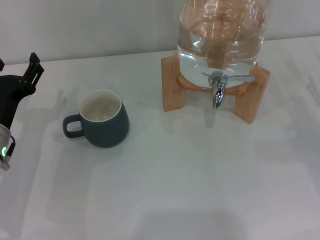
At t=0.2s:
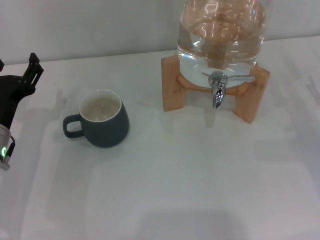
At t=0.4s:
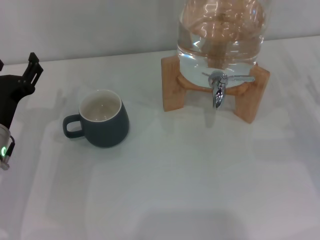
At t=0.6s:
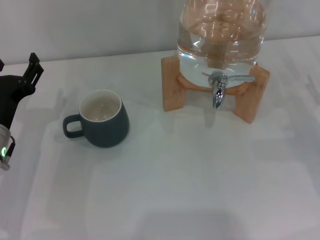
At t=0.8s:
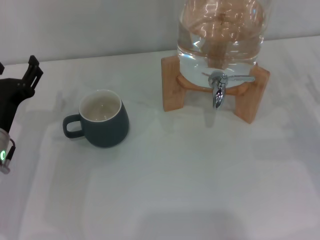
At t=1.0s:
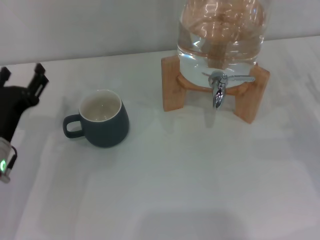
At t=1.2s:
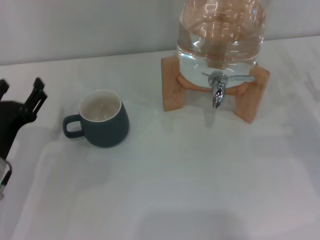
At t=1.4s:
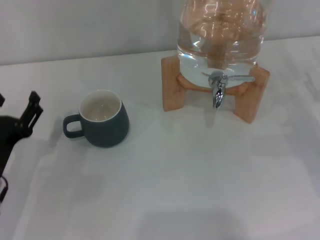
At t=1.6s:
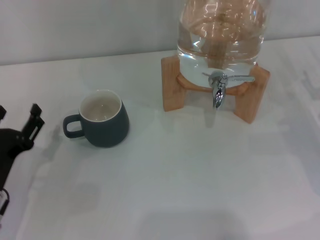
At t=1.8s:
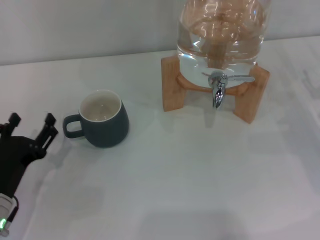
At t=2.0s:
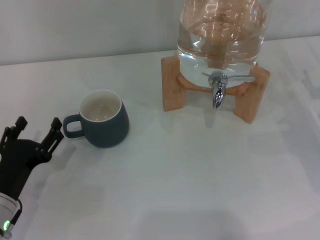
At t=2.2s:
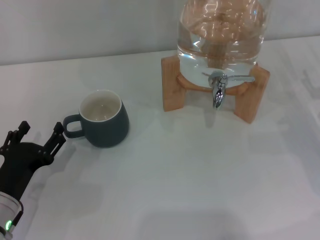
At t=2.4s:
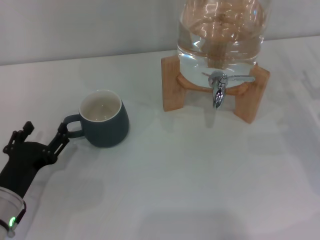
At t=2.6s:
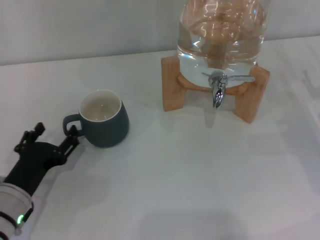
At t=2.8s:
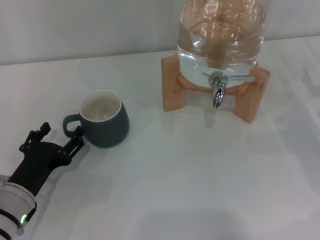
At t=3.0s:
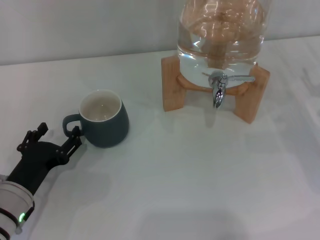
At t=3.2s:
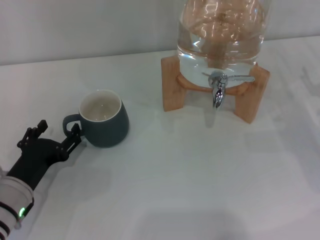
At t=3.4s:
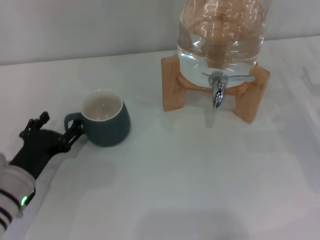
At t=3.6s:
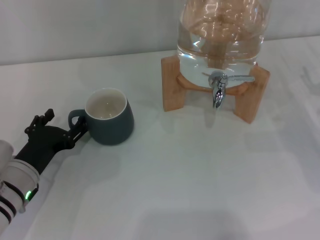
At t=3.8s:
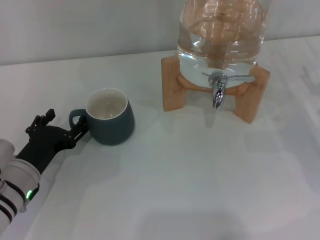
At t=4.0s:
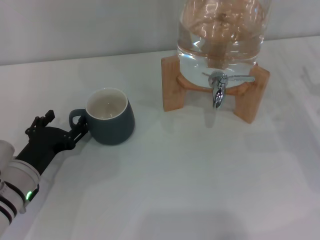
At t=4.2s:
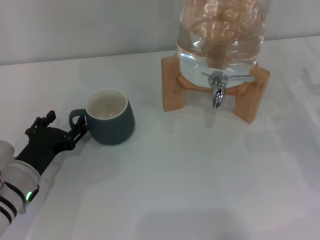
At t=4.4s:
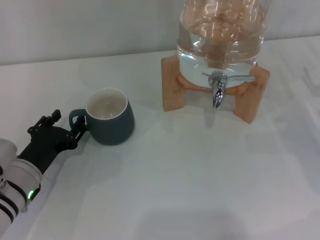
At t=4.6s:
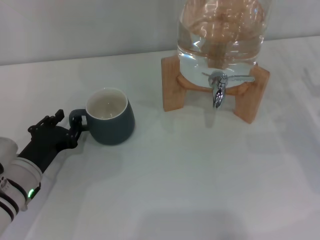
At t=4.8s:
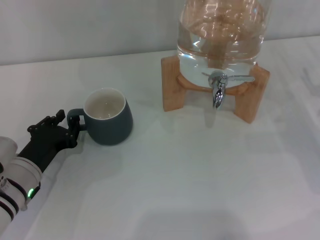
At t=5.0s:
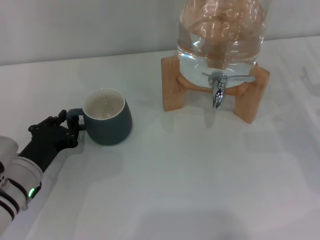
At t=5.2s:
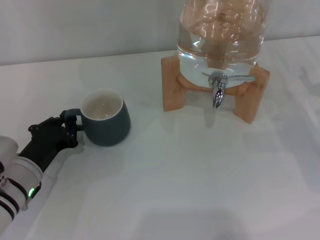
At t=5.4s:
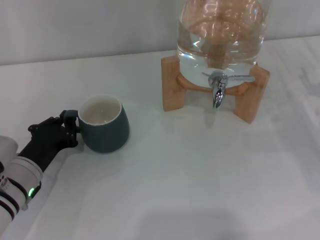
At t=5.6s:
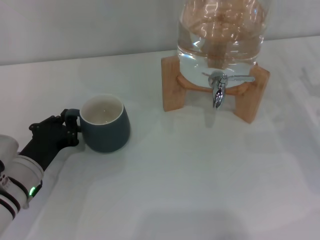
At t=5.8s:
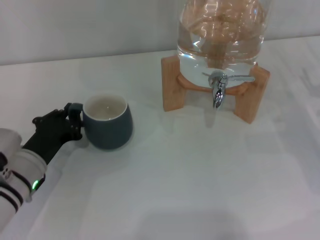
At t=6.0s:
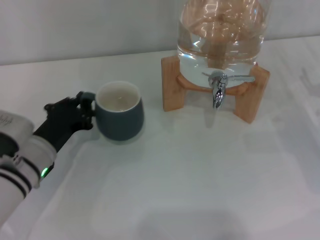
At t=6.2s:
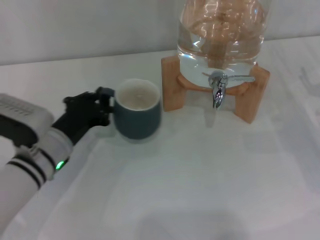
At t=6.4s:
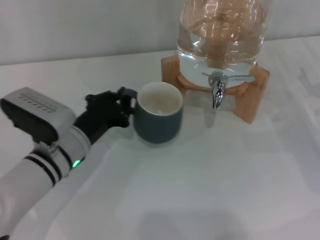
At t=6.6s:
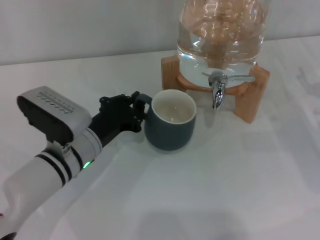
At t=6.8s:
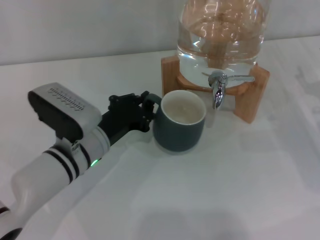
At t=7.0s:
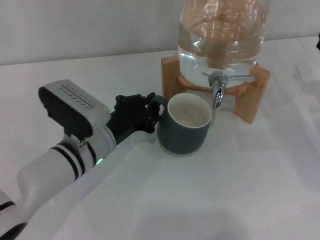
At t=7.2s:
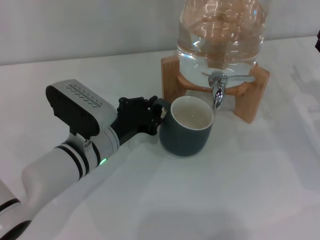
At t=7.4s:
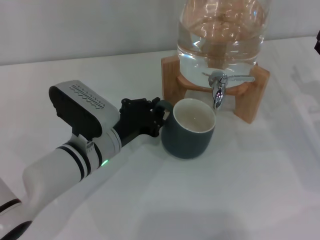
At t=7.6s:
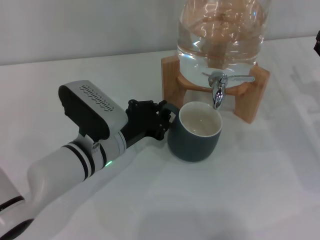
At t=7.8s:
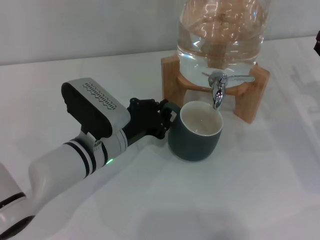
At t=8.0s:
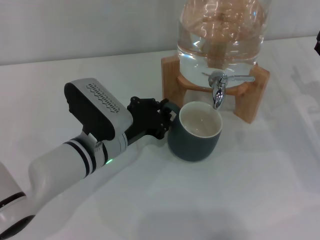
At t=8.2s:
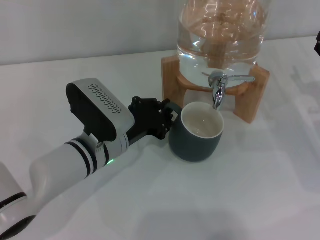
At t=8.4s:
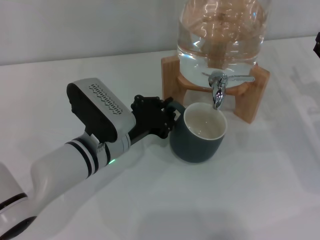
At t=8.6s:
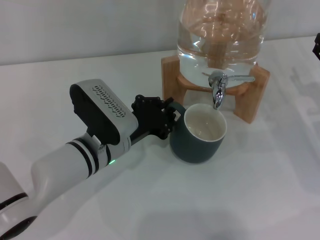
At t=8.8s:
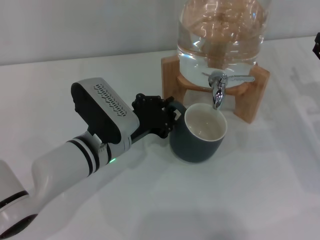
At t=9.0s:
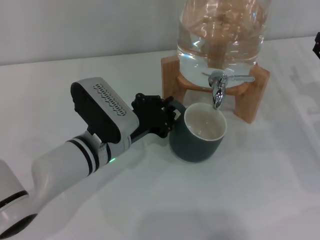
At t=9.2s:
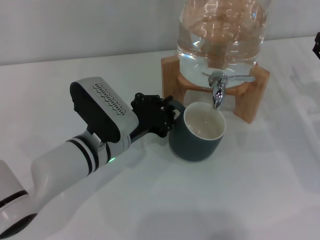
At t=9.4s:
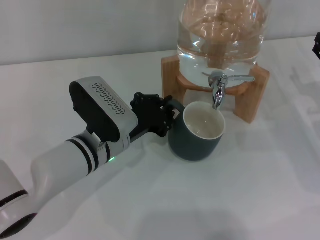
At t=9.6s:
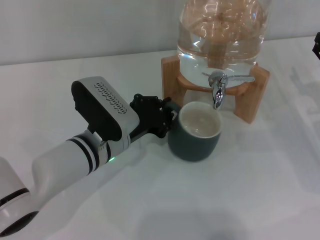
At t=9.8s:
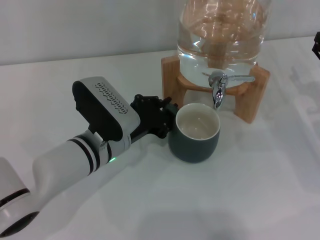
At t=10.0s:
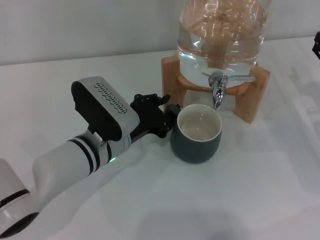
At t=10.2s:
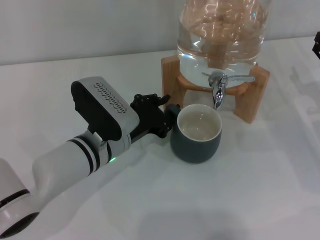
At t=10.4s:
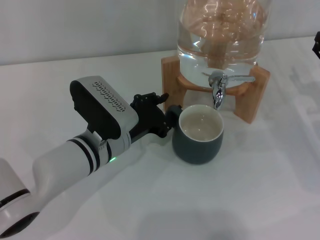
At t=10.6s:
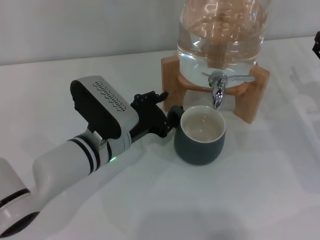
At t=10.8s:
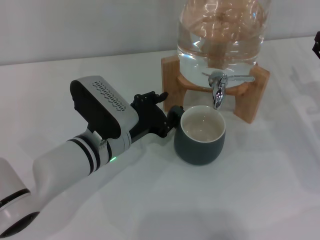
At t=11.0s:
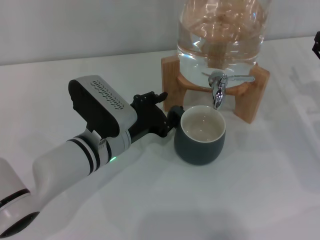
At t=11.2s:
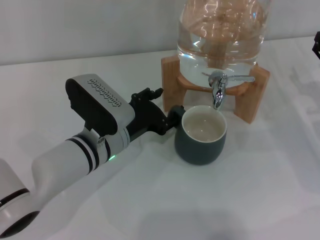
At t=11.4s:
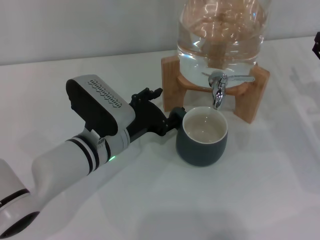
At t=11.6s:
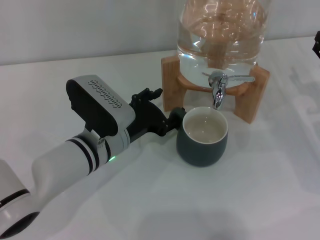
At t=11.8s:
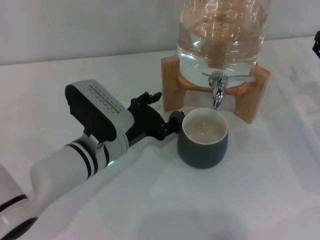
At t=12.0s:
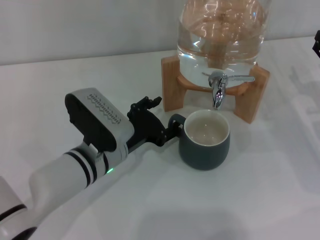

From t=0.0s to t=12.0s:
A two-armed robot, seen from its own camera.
Task of the whole recording: the left gripper pick up the black cup and place it horizontally under the faucet, the right gripper turn on the faucet to fill the cup, and then turn off the faucet.
From t=0.0s to t=1.6s: The left gripper heads backward, covering about 10 cm.
From t=1.6s to t=4.4s: The grippers move only a little.
From t=4.4s to t=6.0s: The left gripper closes up.
From t=6.0s to t=7.6s: The left gripper moves to the right, about 10 cm.
From t=7.6s to t=9.0s: The grippers move only a little.
From t=9.0s to t=10.4s: Neither gripper changes place.
From t=10.4s to t=12.0s: The left gripper opens.

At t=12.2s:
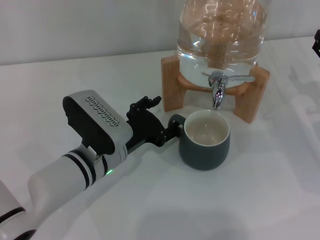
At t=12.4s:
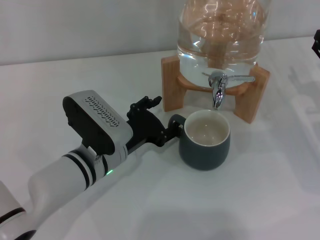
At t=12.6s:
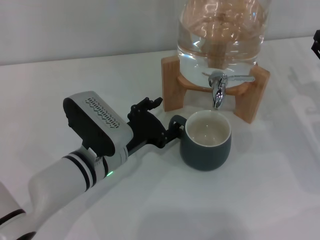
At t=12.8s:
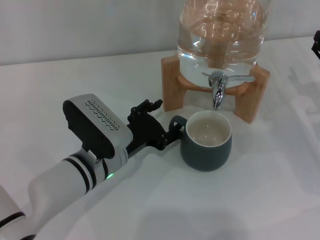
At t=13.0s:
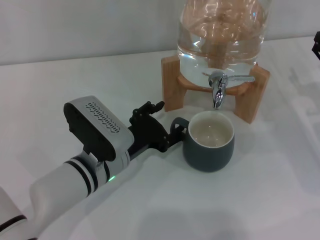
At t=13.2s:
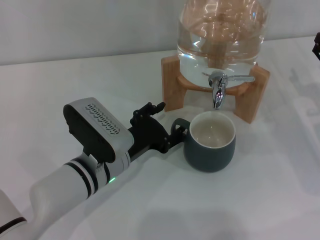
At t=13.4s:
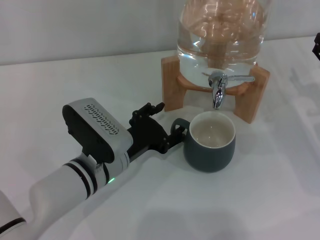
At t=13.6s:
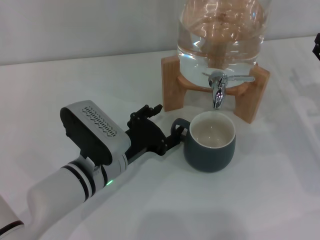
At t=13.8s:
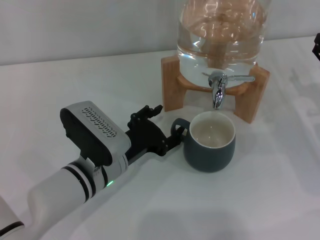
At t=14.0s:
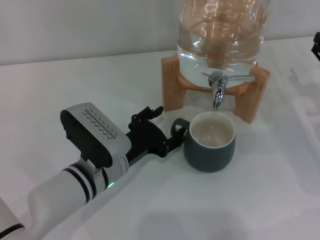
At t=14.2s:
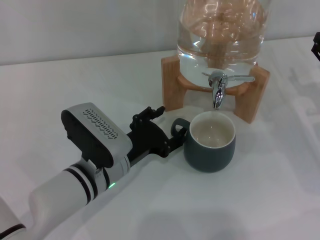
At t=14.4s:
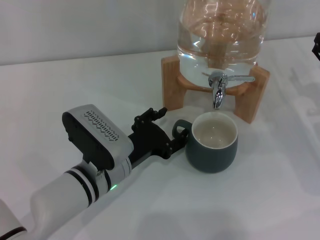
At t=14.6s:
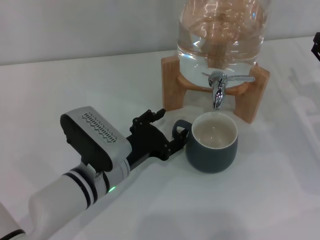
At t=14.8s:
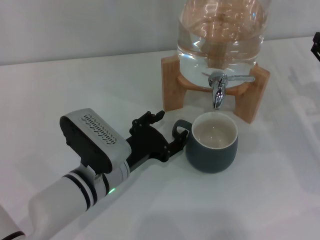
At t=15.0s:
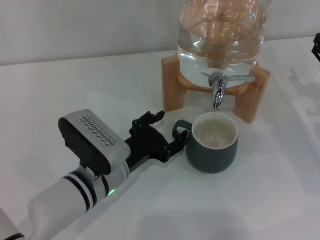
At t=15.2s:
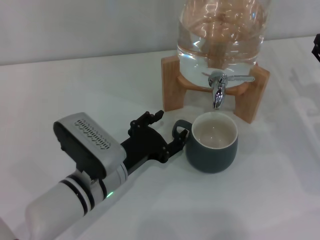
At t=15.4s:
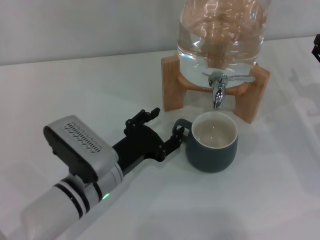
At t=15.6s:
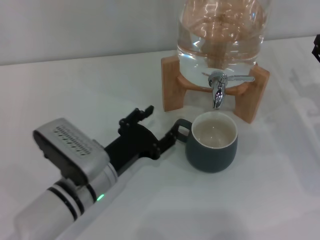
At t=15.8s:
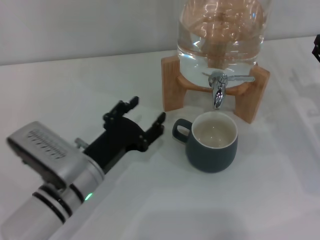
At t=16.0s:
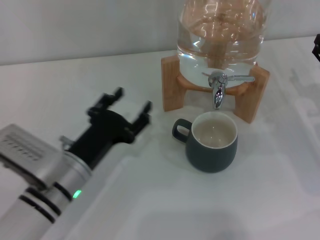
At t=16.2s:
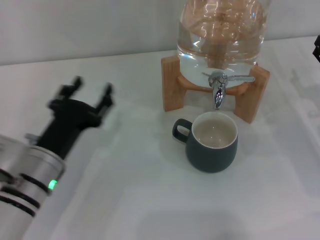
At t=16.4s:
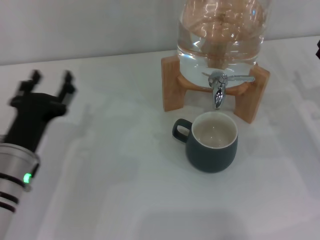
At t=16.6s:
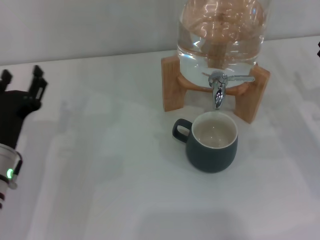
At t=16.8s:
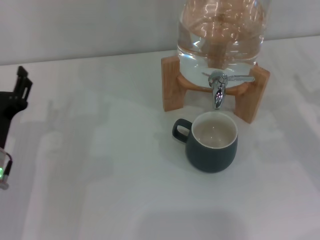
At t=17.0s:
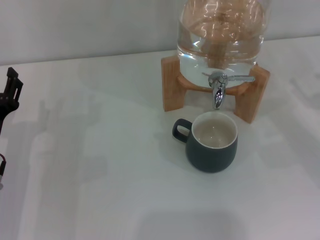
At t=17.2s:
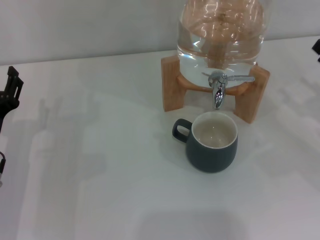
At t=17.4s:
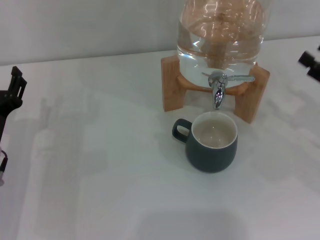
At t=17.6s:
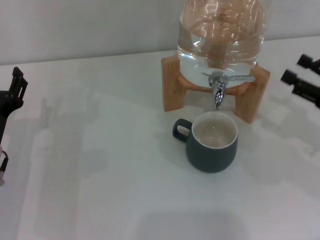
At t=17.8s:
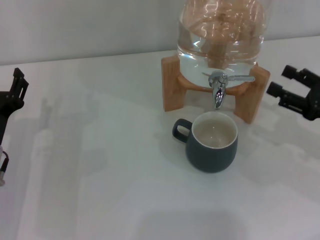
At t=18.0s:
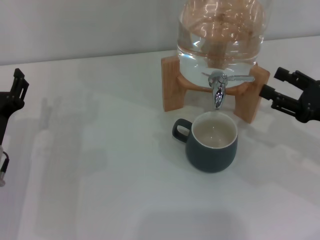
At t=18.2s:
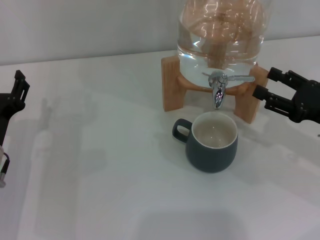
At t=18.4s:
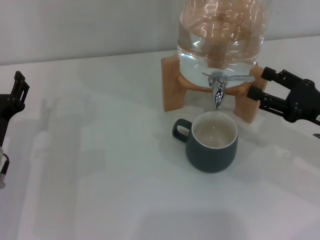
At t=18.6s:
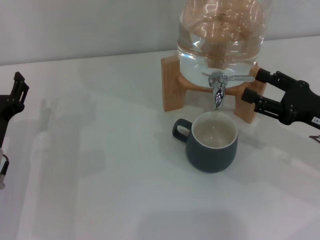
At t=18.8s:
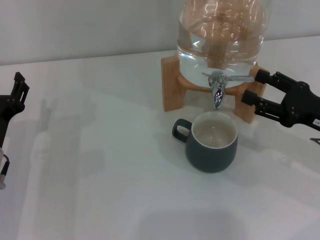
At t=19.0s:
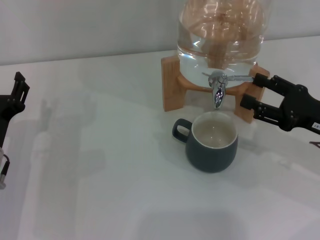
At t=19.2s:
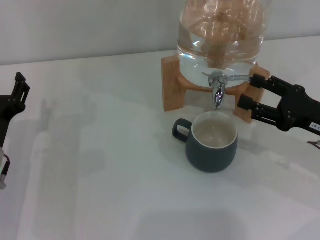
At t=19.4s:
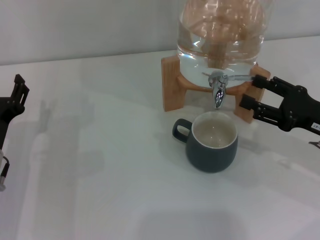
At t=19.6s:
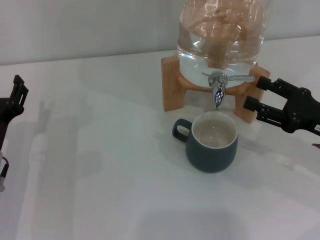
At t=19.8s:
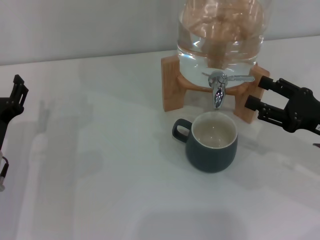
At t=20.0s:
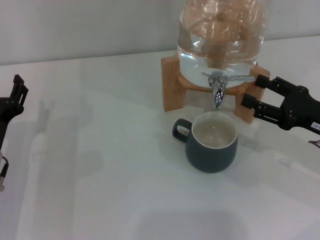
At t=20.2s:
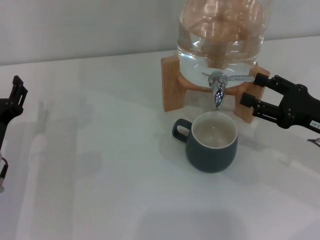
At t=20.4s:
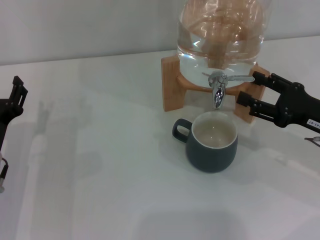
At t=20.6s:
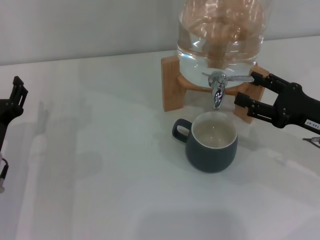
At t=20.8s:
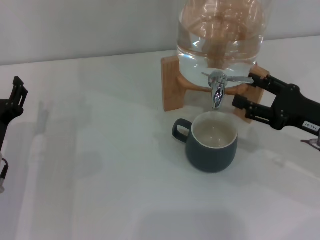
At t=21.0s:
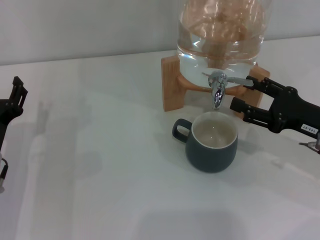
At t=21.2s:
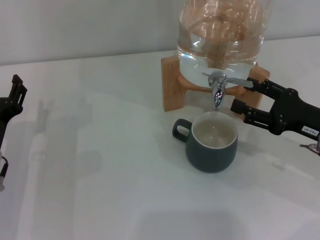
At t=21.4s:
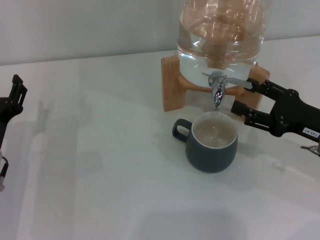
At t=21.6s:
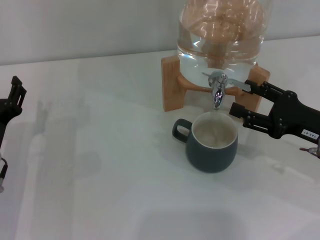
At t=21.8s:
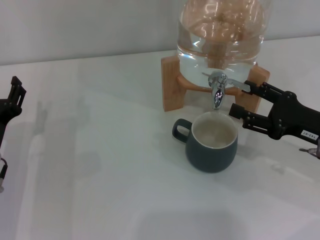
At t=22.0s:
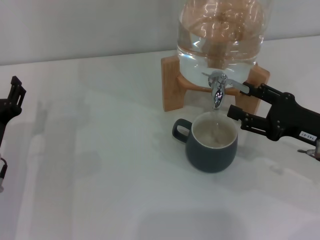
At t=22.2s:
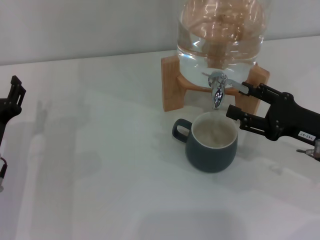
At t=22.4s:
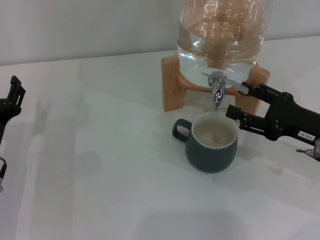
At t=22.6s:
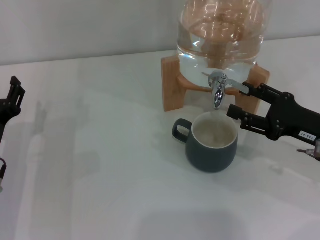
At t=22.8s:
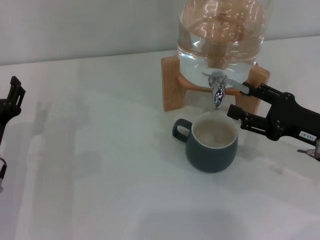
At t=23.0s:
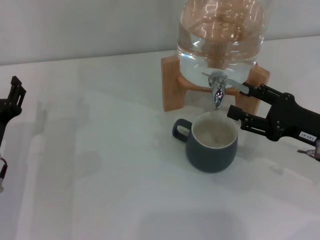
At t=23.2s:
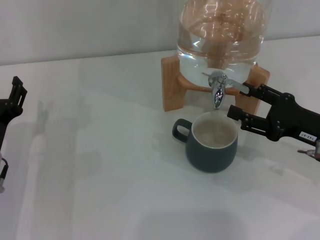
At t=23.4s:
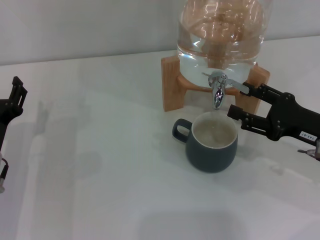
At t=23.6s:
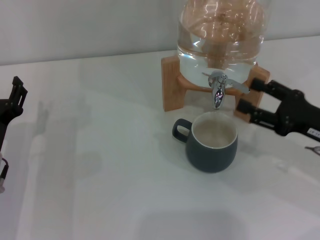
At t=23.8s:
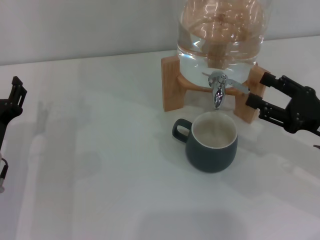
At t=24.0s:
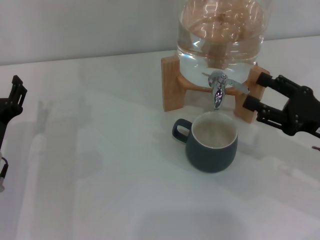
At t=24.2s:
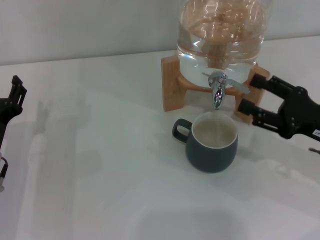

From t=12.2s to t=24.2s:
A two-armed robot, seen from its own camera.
Task of the whole recording: the left gripper pick up the black cup and place it horizontally under the faucet, the right gripper turn on the faucet to fill the cup, and then turn off the faucet.
Step, from t=12.2s to t=15.8s: Move the cup beneath the water dispenser nozzle with the left gripper.
From t=12.2s to t=15.2s: The grippers make only small movements.
From t=15.2s to t=16.6s: The left gripper heads to the left, covering roughly 10 cm.
From t=16.6s to t=18.2s: The right gripper ends up approximately 5 cm from where it was.
From t=18.2s to t=21.2s: The grippers stay close to where they were, moving slightly.
From t=21.2s to t=22.6s: The two grippers keep their place.
From t=22.6s to t=24.2s: The grippers make only small movements.
